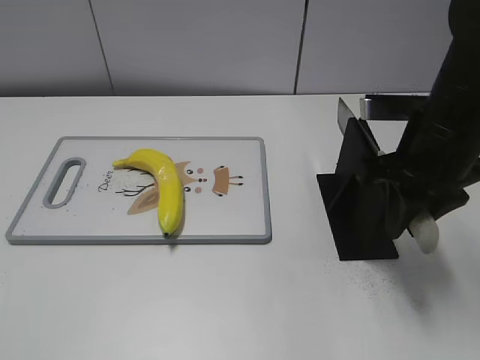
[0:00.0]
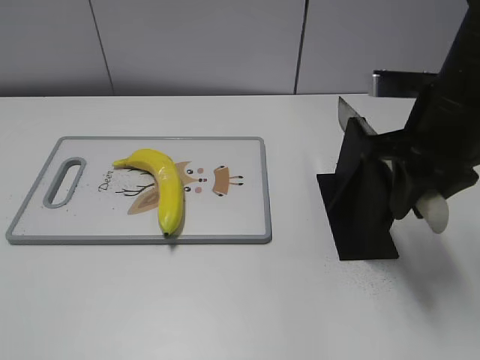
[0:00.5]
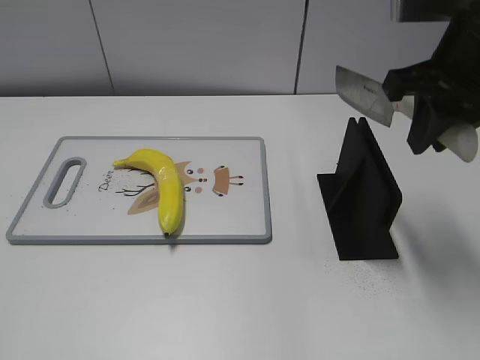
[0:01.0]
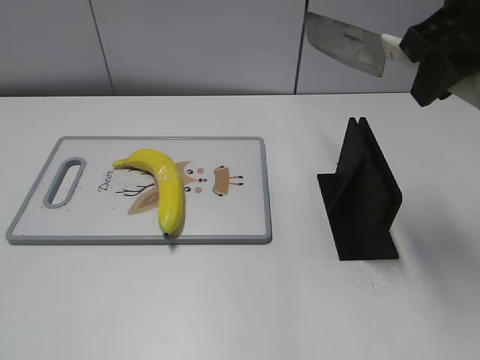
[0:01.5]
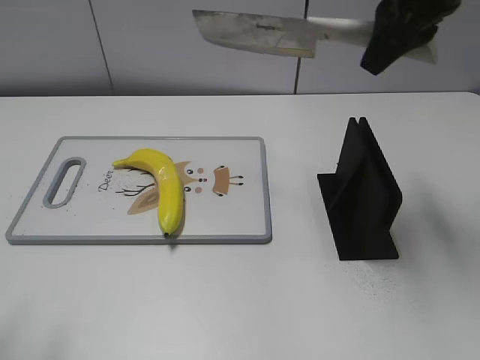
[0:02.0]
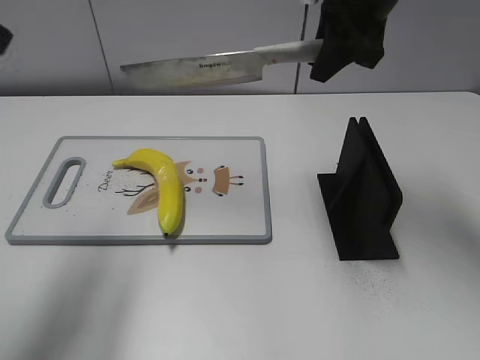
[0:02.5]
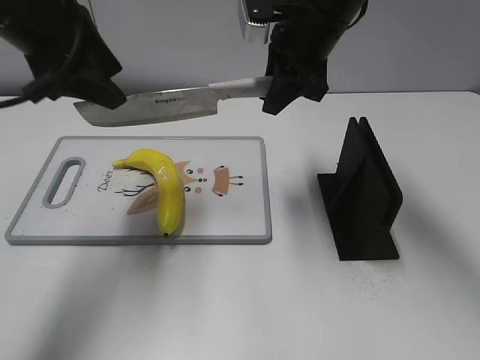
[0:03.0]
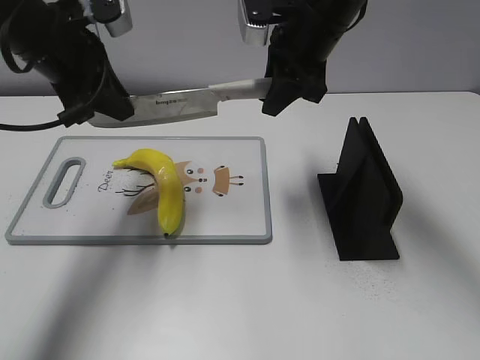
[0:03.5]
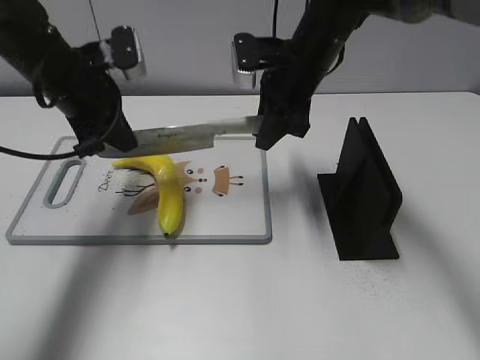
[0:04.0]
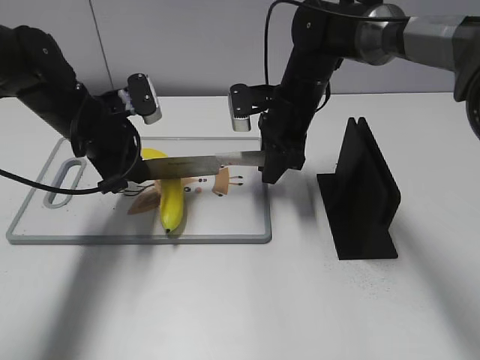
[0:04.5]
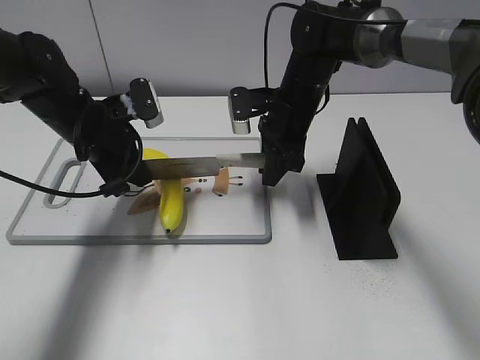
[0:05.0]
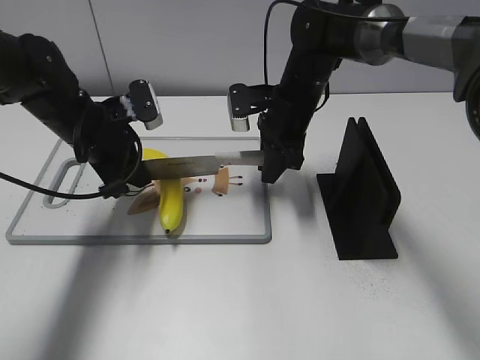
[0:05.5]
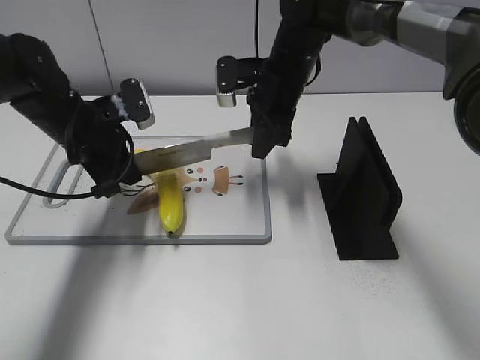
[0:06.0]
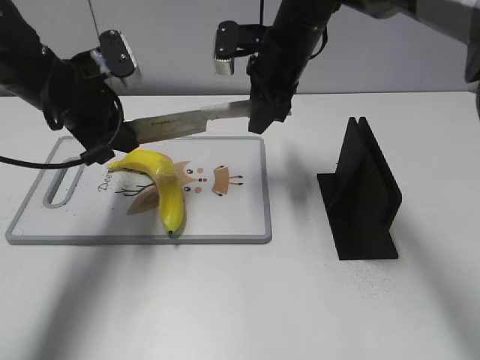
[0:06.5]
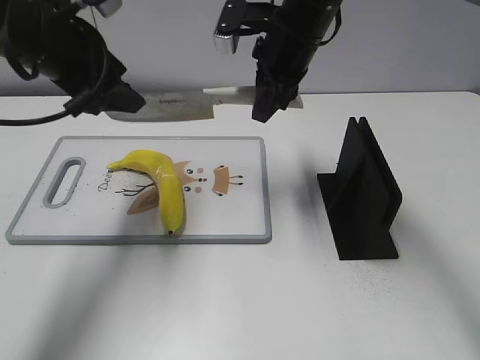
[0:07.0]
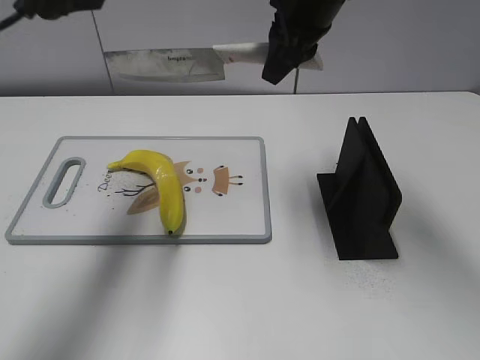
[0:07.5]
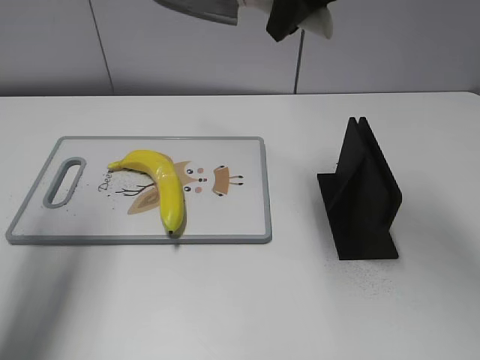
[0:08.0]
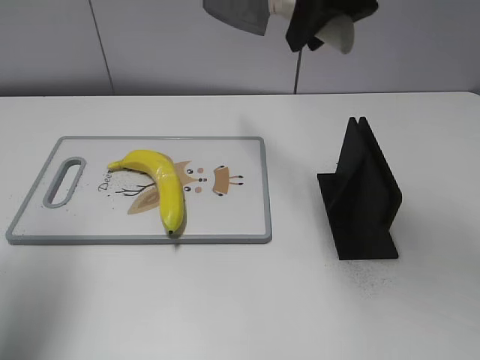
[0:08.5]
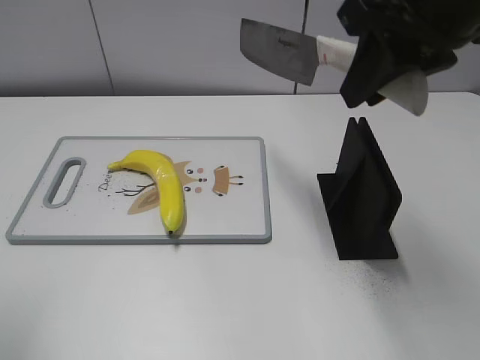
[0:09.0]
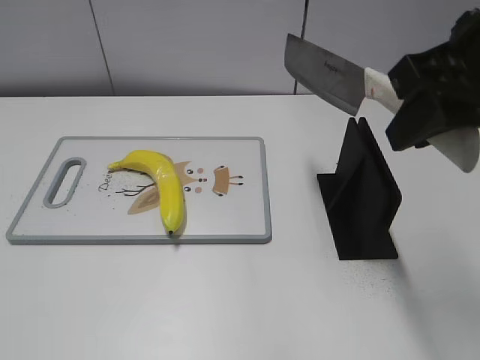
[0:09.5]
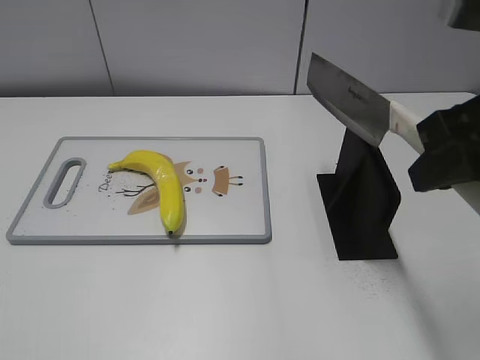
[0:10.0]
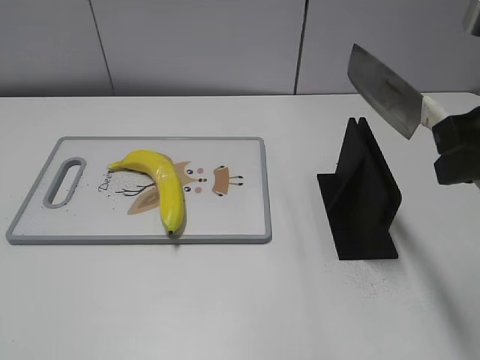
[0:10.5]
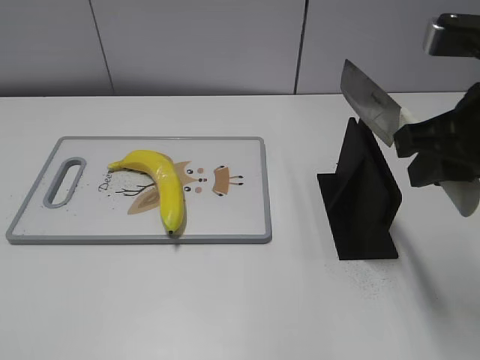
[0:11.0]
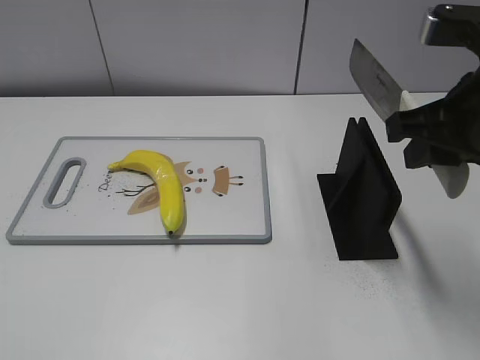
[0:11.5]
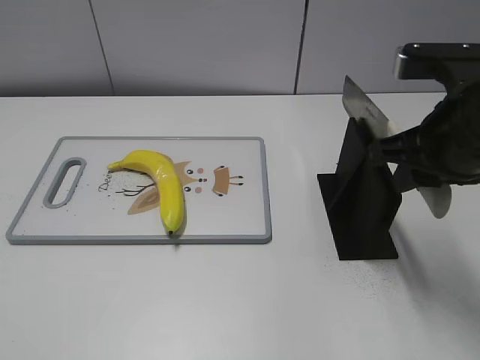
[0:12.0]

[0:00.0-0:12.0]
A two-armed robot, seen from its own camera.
Task of the whole recording: cut plastic banana.
Step, 0:01.5 to 0:05.0: Lift the knife with your right hand.
Step, 0:06.0 to 0:06.5: Cut the banana with your right hand.
Step, 0:07.0 to 0:09.5: Lift the knife with your right hand.
0:00.0 to 0:02.0: The left gripper shifts some 10 cm forward and upward; the right gripper shifts about 15 cm upward and forward.
0:02.0 to 0:04.0: The left gripper heads forward, covering approximately 30 cm, and closes up. Meanwhile the right gripper shifts approximately 20 cm downward, forward and to the left.
0:04.0 to 0:06.0: The left gripper goes about 5 cm downward.
0:06.0 to 0:08.0: The right gripper is displaced upward by some 20 cm. The left gripper travels upward, to the left and backward by approximately 25 cm, and opens its fingers.
0:08.0 to 0:10.0: The right gripper travels backward and to the right by approximately 20 cm, while the left gripper moves backward, approximately 30 cm.
0:10.0 to 0:12.0: The right gripper goes some 10 cm downward and forward.

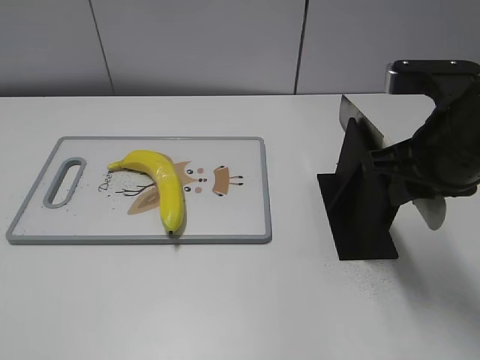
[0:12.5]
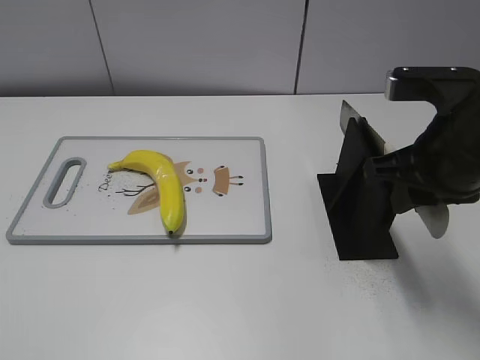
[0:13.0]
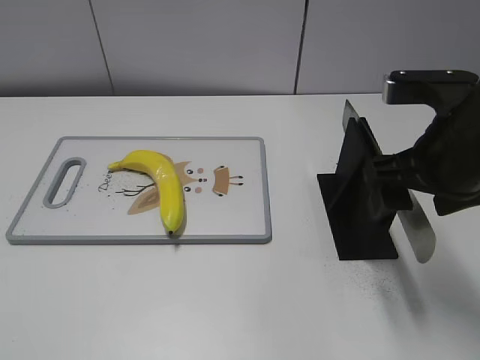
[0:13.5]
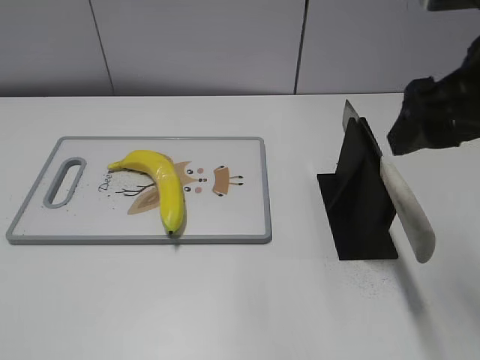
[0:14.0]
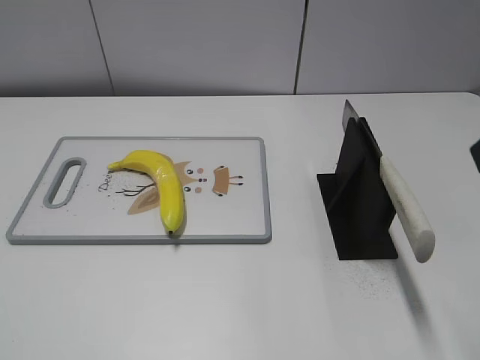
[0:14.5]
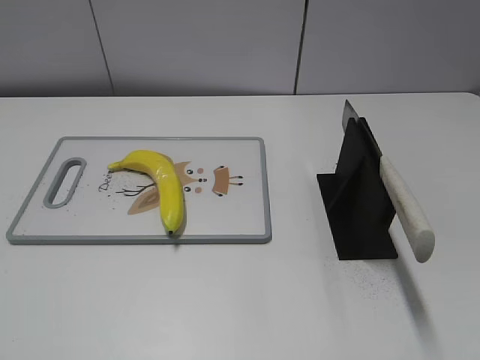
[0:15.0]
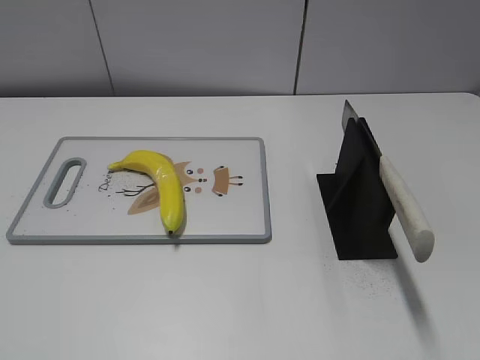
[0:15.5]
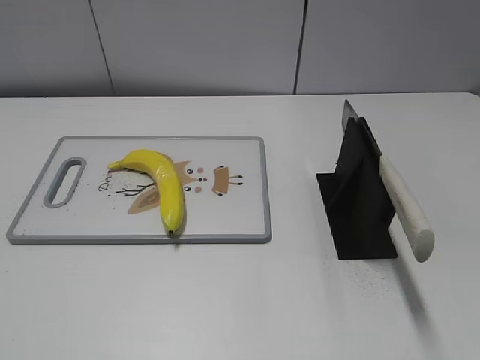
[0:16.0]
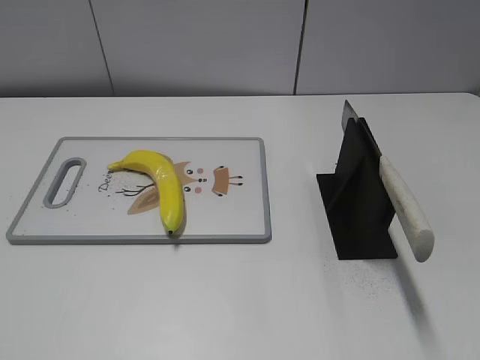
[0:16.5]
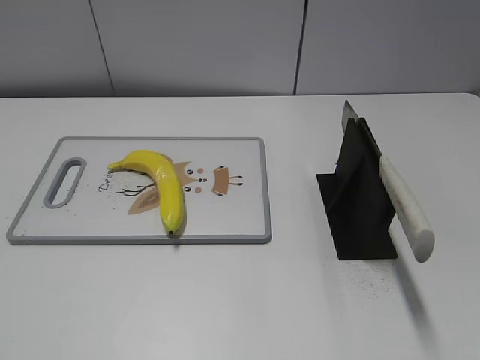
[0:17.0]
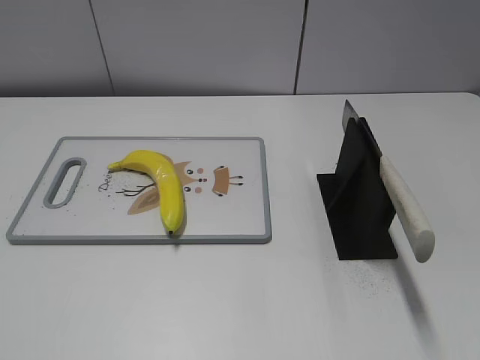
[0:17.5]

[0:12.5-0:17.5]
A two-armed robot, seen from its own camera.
Task of the whole recording: cut plastic banana.
Step, 0:12.5 to 0:17.5: Place the knife on the storage rack with your right hand.
0:12.5 to 0:15.0: The right gripper heads backward and to the right, covering roughly 20 cm, and opens its fingers.
